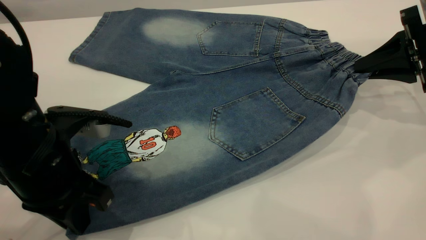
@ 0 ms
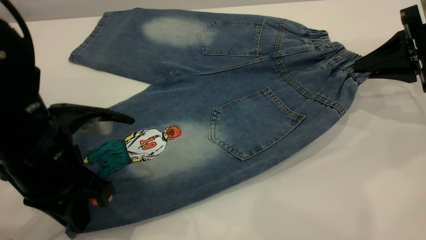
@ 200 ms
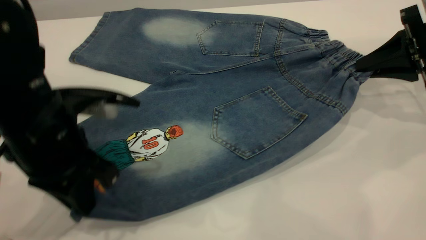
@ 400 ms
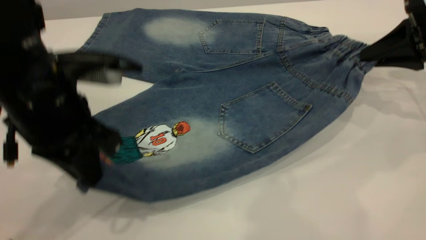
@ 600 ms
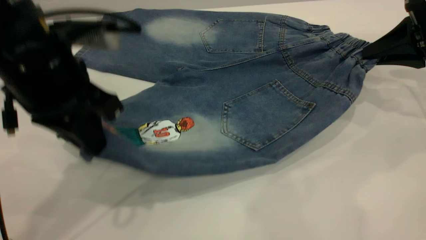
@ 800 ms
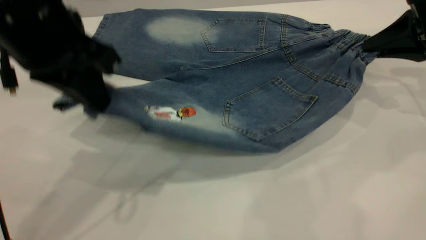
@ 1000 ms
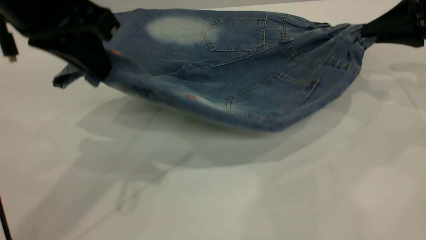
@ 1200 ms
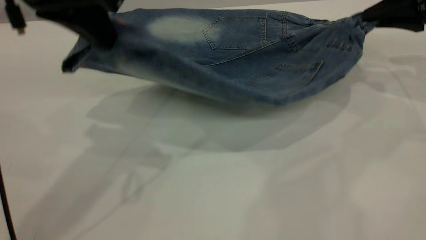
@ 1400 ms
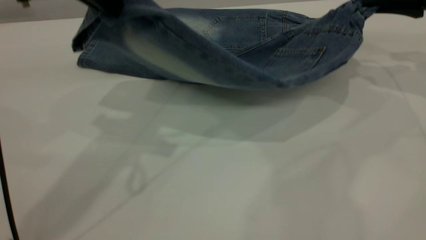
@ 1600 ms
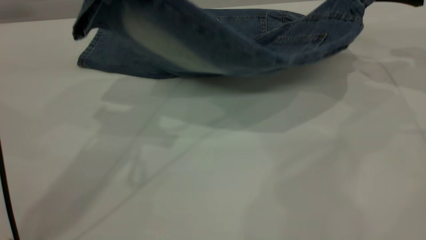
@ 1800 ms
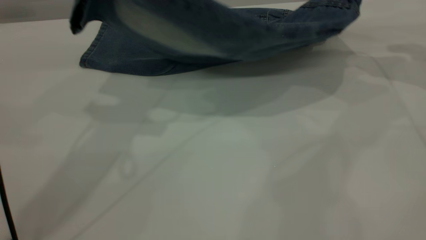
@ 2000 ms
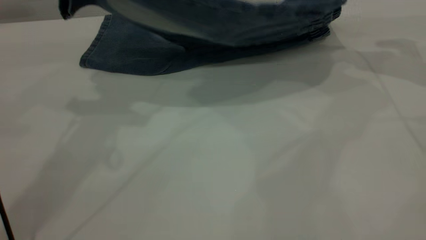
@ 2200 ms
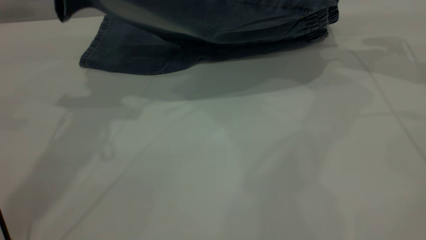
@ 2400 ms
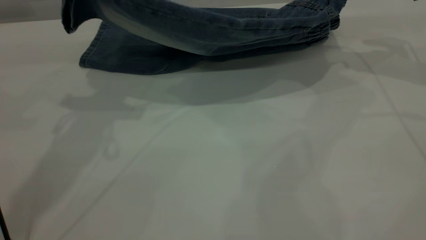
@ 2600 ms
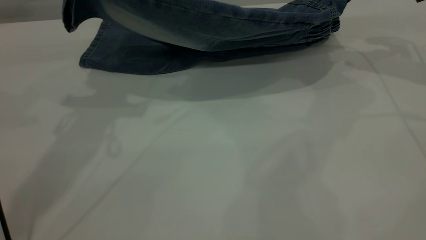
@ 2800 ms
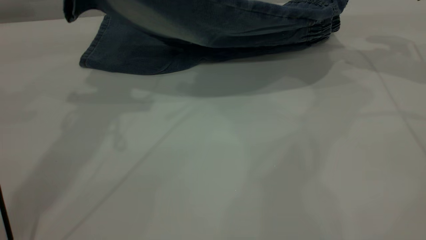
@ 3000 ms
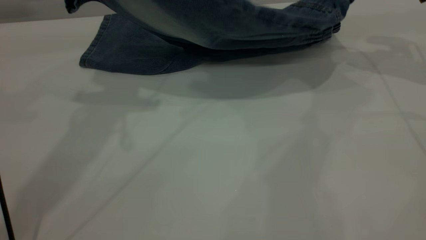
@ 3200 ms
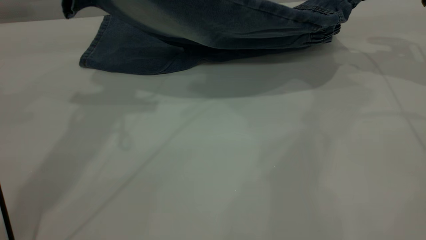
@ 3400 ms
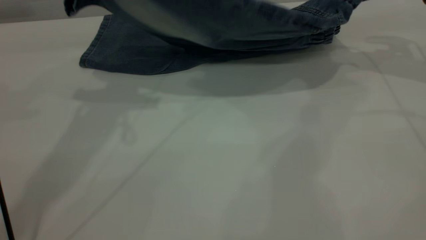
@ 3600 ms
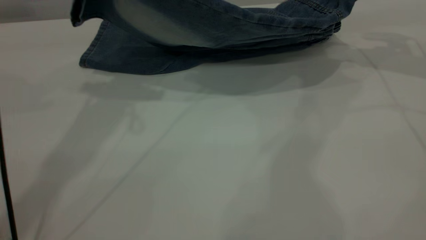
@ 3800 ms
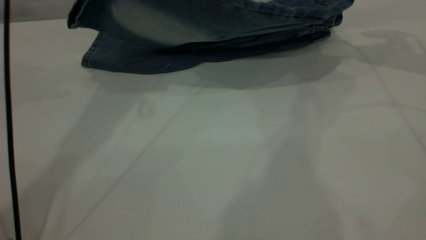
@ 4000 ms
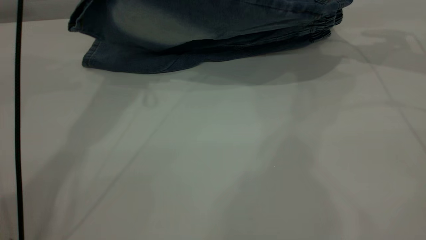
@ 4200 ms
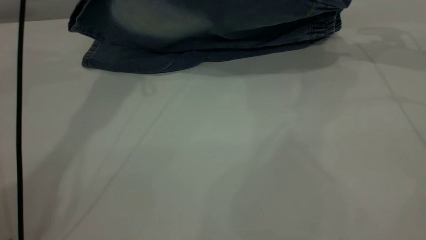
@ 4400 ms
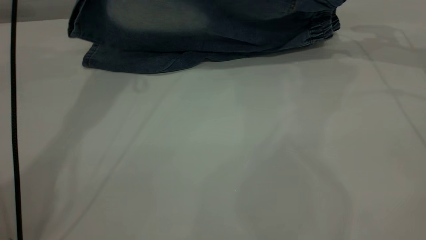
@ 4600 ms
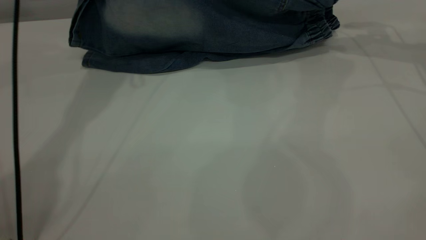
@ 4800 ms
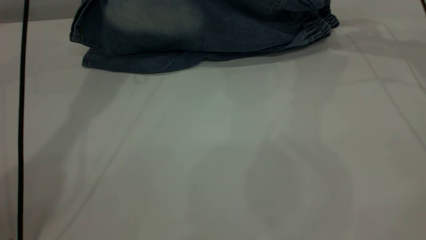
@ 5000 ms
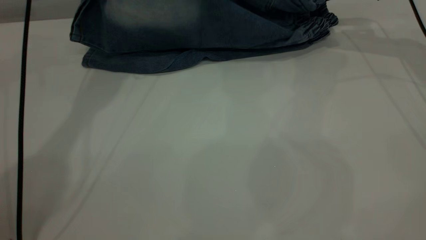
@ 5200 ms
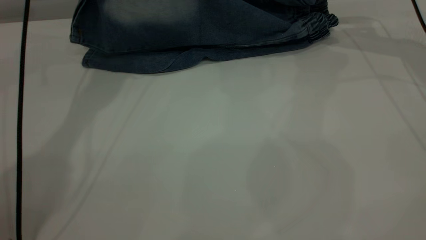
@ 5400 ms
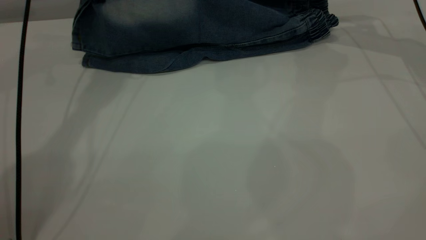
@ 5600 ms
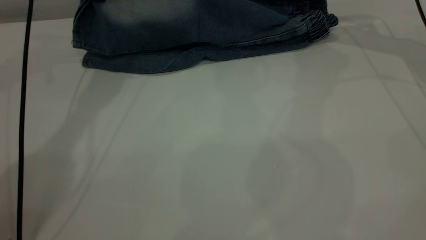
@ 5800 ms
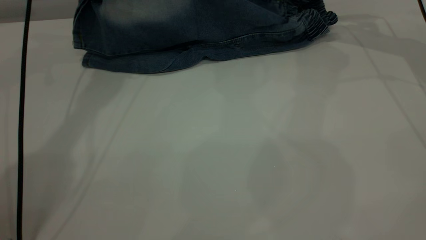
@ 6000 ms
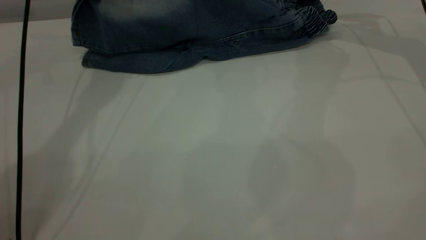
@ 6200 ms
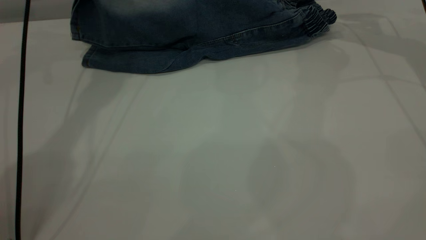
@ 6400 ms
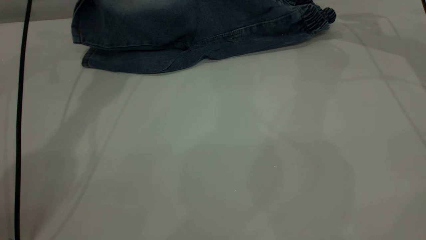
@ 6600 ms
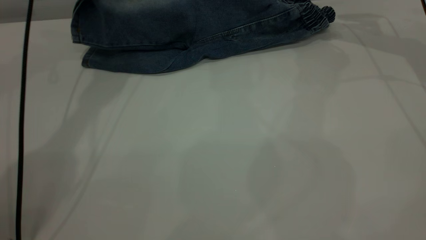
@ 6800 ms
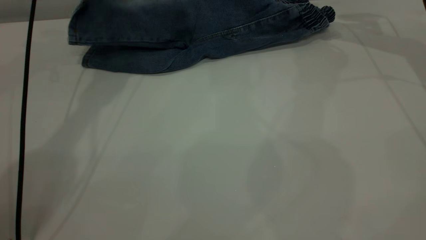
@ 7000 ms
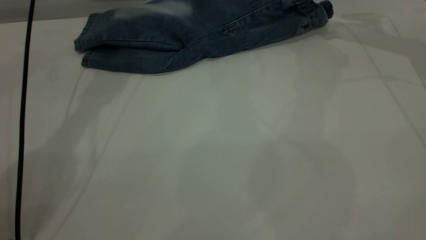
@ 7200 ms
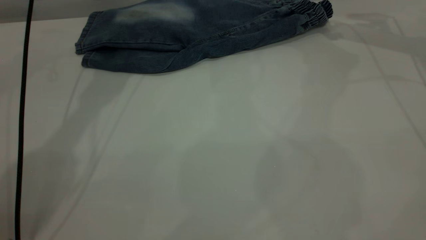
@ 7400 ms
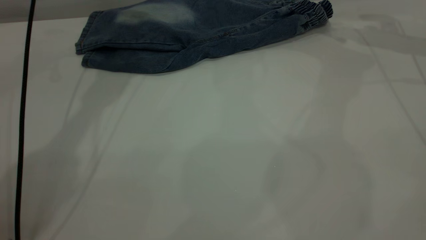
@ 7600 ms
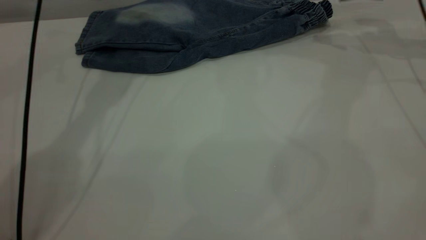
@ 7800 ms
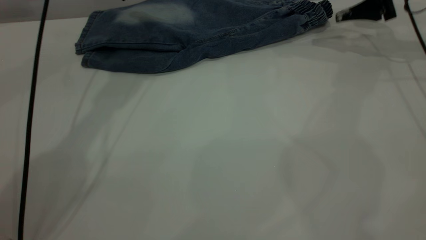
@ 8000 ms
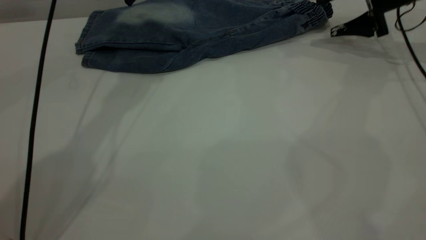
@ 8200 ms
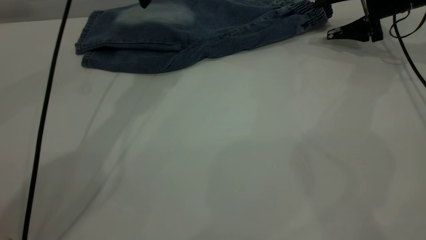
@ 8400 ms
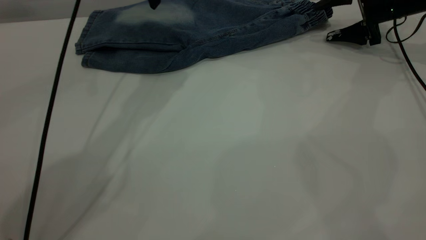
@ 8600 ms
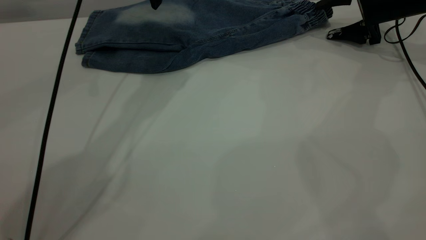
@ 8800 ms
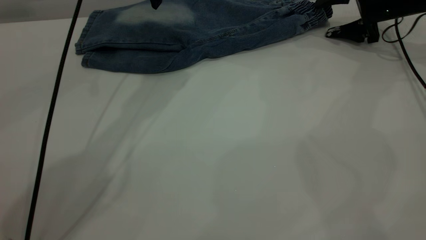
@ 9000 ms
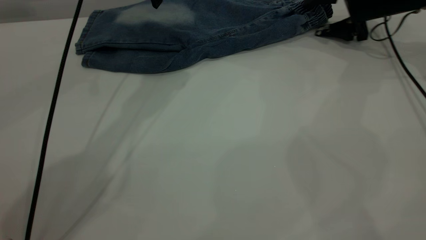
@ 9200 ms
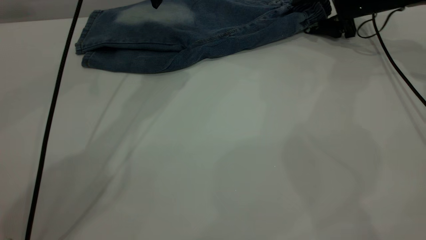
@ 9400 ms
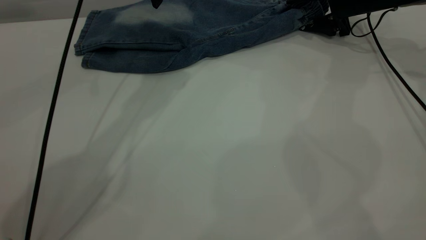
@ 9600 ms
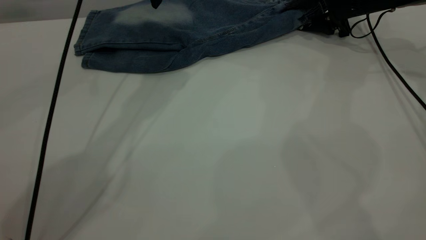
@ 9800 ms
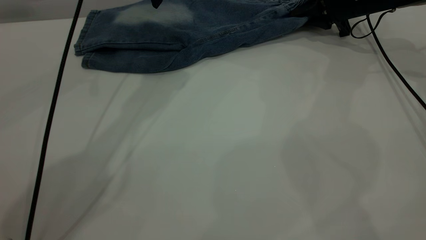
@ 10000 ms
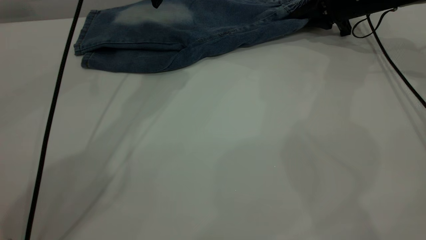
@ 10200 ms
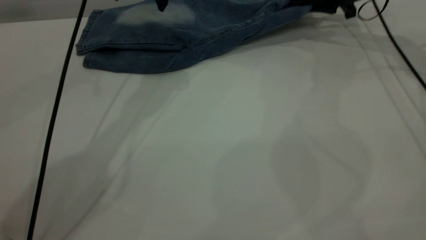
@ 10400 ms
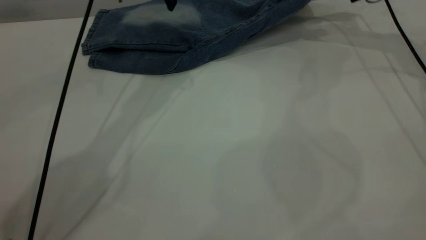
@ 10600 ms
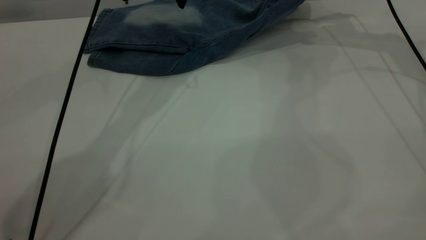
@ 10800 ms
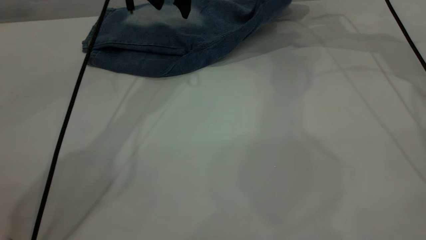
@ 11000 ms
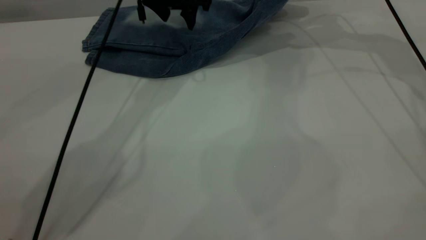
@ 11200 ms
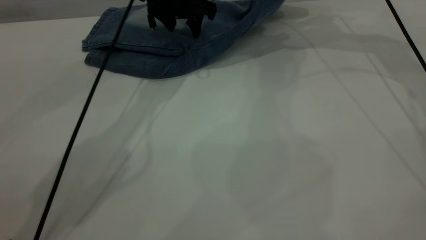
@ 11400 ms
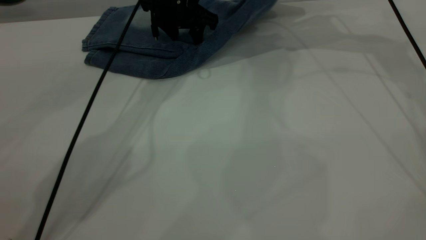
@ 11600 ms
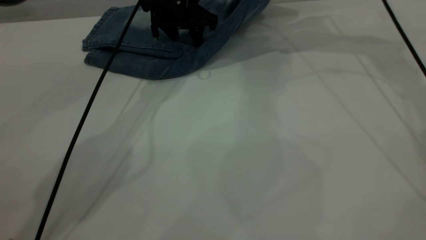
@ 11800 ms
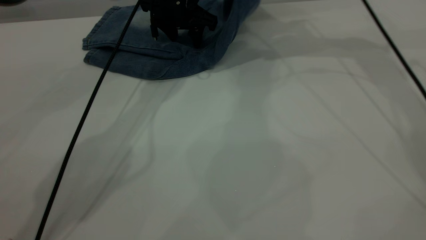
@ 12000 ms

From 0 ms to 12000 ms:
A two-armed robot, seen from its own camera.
Step, from 0 ms to 7600 ms: Fold the bottom of the pants upward.
From 0 ms to 1600 ms: The left gripper goes some 20 cm upward and forward. The right gripper heads upward and forward, covering about 10 cm.
From 1600 ms to 3000 ms: The right gripper moves some 5 cm; the left gripper is displaced forward by about 5 cm.
From 3000 ms to 4400 ms: The left gripper heads forward, covering about 10 cm.
From 4400 ms to 6000 ms: The right gripper moves forward, approximately 5 cm, and opens its fingers, while the left gripper travels downward and forward by roughly 10 cm.
From 6000 ms to 7600 ms: The left gripper opens.
From 7600 ms to 9000 ms: The left gripper goes roughly 10 cm to the right. The right gripper shifts some 10 cm downward.
From 9000 ms to 10400 ms: The right gripper moves approximately 5 cm, and closes up.
From 10400 ms to 12000 ms: The right gripper shifts approximately 15 cm upward and to the left; the left gripper is displaced downward by about 10 cm.

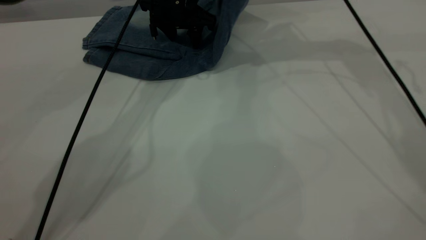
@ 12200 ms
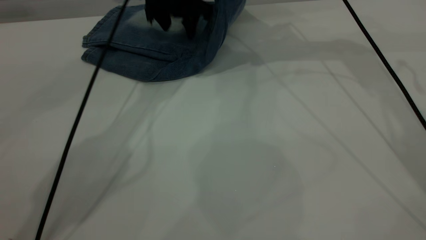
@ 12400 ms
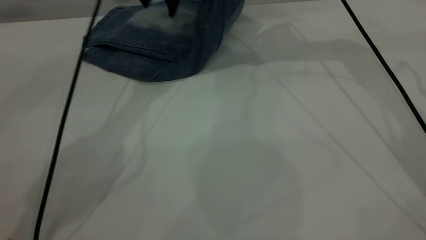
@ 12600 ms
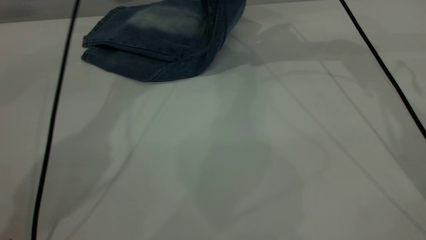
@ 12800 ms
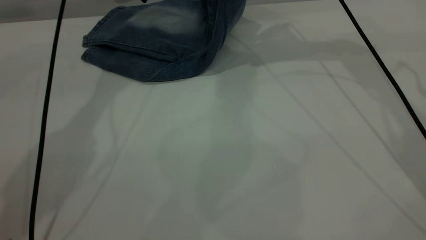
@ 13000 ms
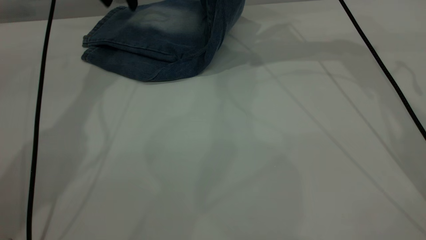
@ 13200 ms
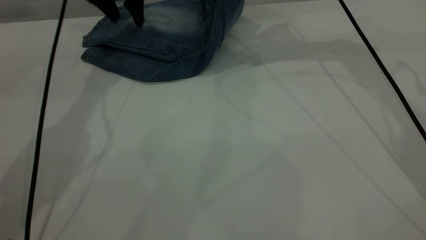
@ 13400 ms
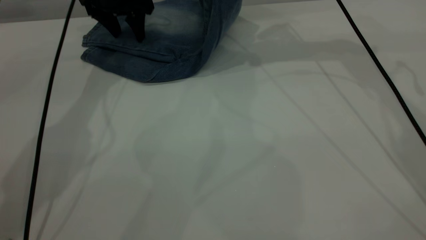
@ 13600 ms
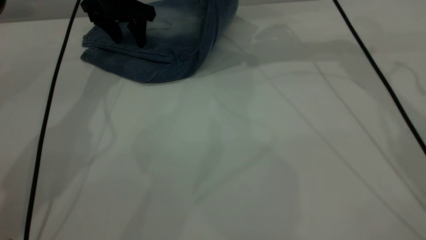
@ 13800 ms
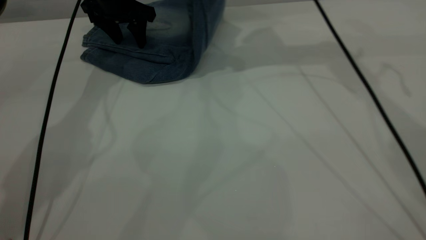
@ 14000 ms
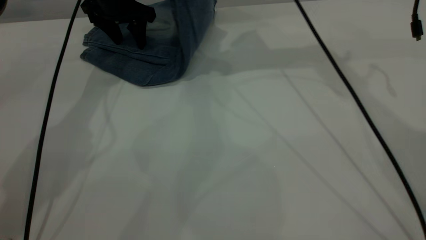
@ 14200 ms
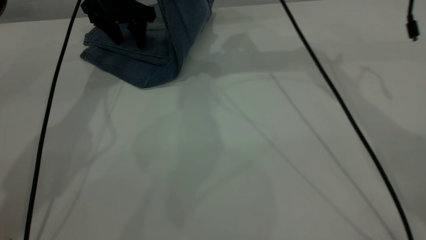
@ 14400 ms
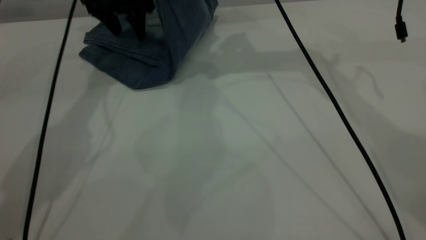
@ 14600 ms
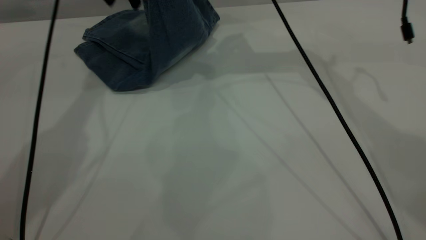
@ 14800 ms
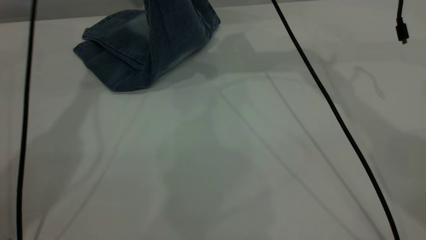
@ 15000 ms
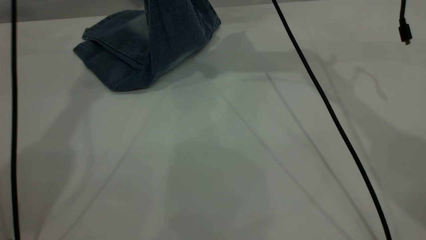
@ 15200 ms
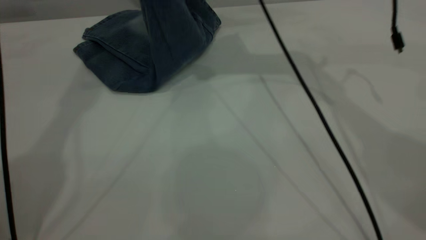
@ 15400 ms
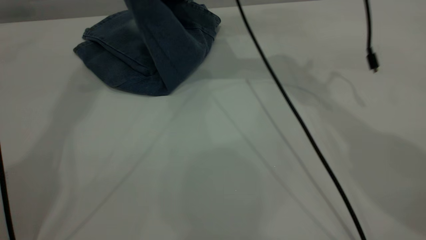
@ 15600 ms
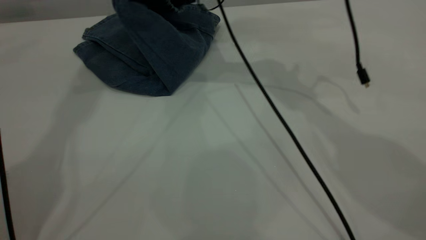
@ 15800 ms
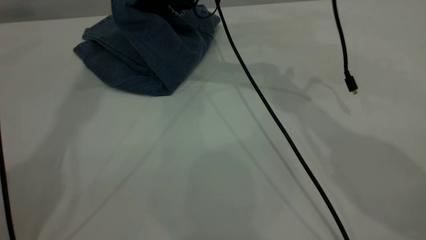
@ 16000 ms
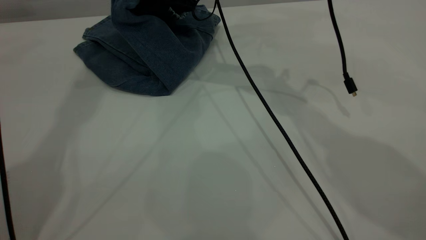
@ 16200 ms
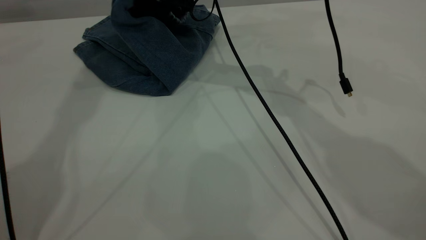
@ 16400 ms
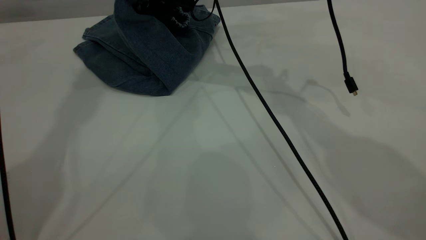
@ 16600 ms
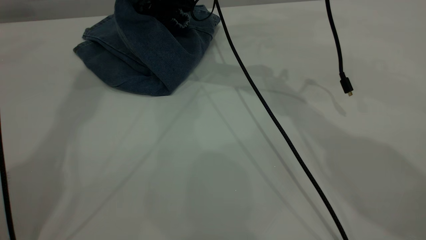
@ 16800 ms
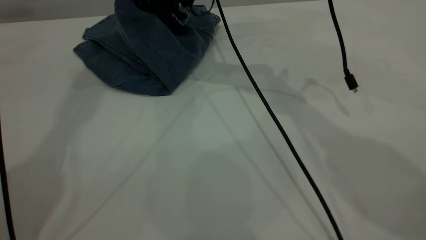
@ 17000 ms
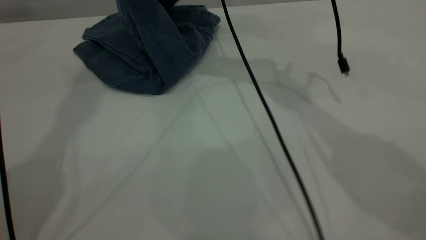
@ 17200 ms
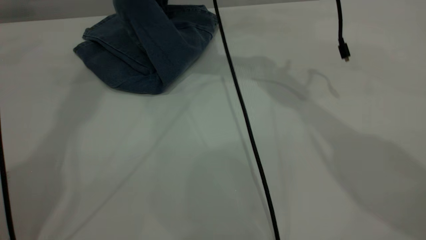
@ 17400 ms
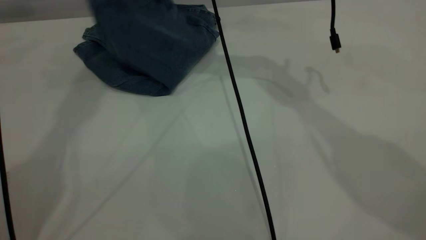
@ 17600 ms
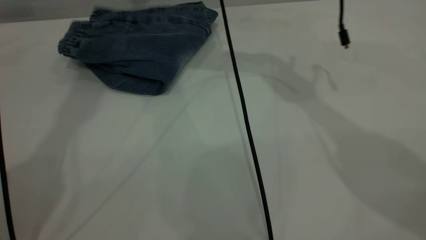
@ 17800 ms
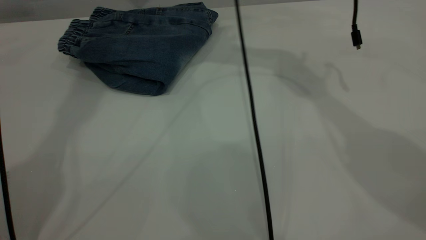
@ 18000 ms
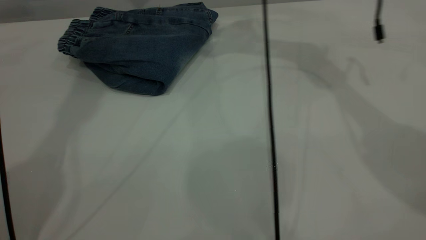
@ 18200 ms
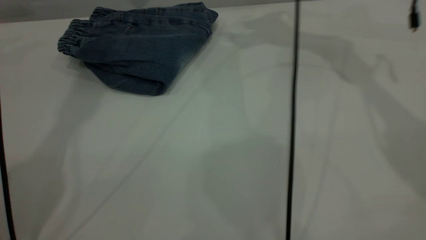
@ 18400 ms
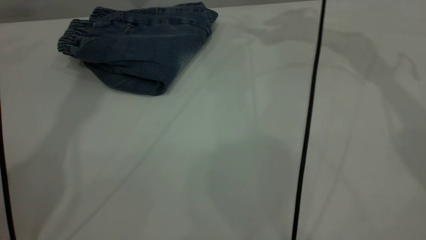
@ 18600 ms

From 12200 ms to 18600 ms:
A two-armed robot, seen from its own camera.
Step, from 12200 ms to 17800 ms: Fold your pants from right to left.
From 12200 ms to 13800 ms: The left gripper heads to the left, covering some 10 cm.
From 13800 ms to 15400 ms: The right gripper is displaced to the left by approximately 10 cm, while the left gripper shifts some 30 cm upward.
From 15400 ms to 17000 ms: The right gripper heads to the left, covering approximately 5 cm, and opens.
From 17000 ms to 18600 ms: The right gripper shifts roughly 20 cm to the right and upward.
